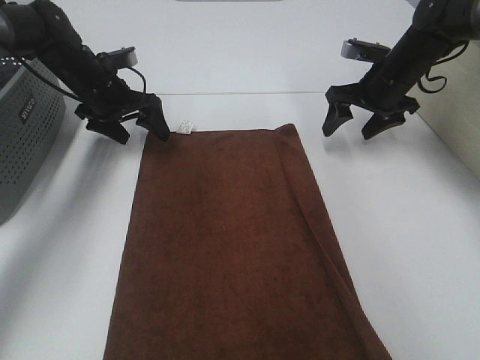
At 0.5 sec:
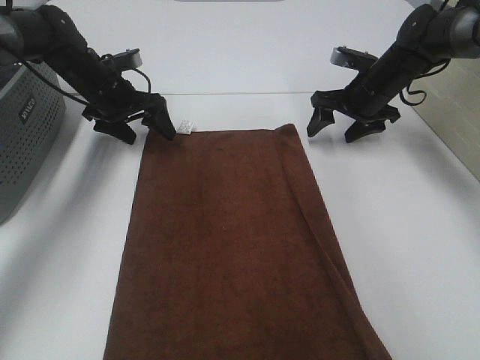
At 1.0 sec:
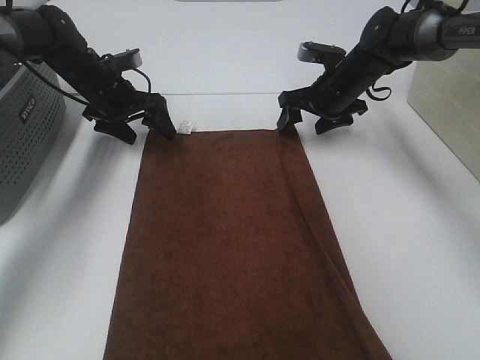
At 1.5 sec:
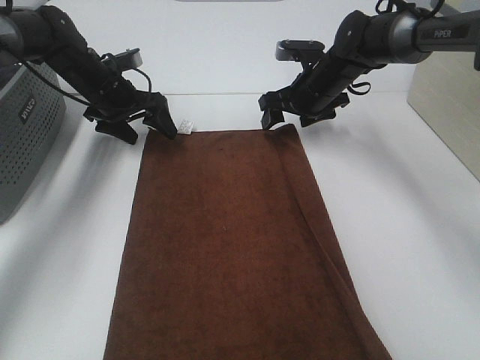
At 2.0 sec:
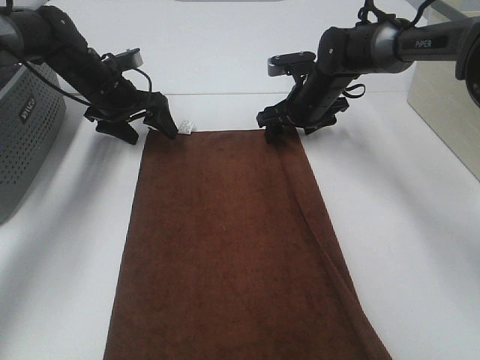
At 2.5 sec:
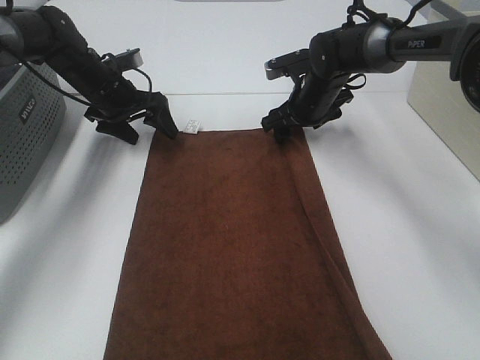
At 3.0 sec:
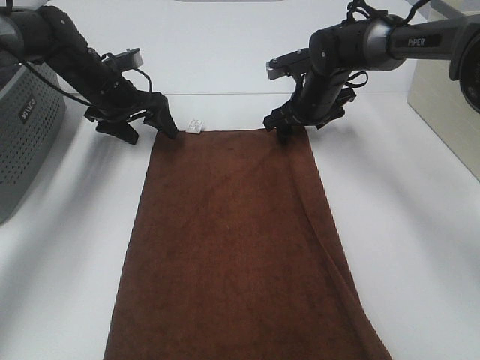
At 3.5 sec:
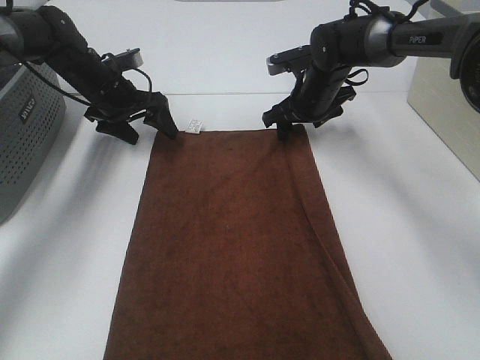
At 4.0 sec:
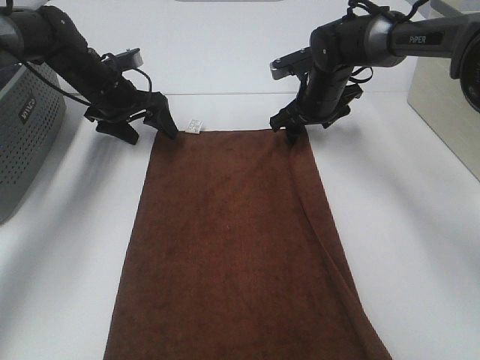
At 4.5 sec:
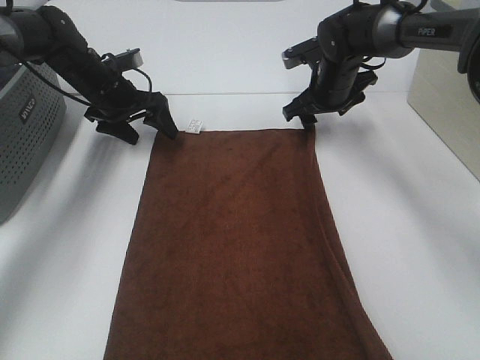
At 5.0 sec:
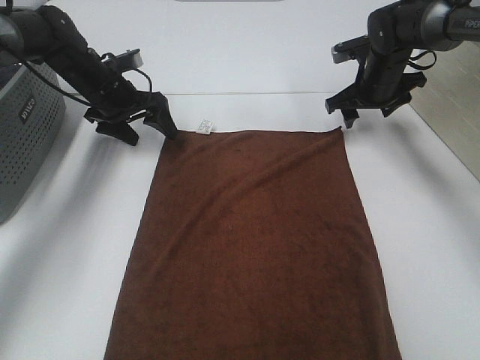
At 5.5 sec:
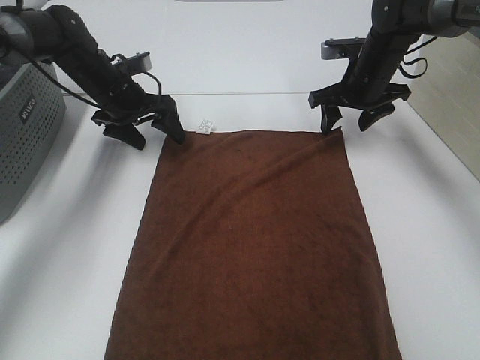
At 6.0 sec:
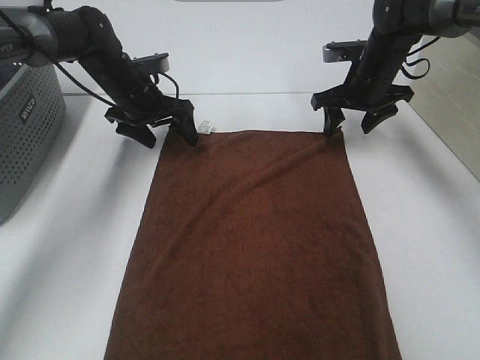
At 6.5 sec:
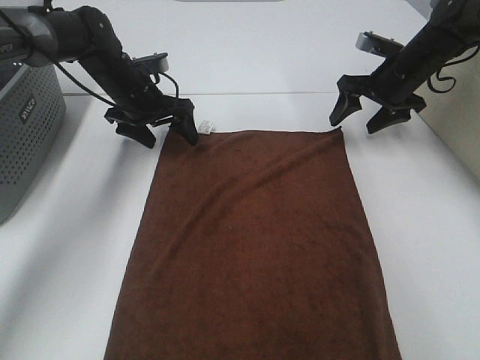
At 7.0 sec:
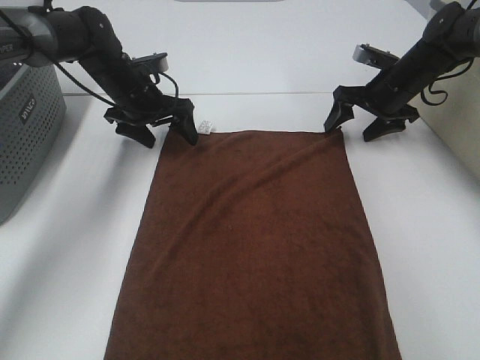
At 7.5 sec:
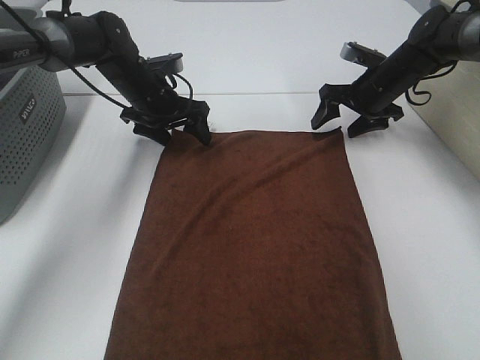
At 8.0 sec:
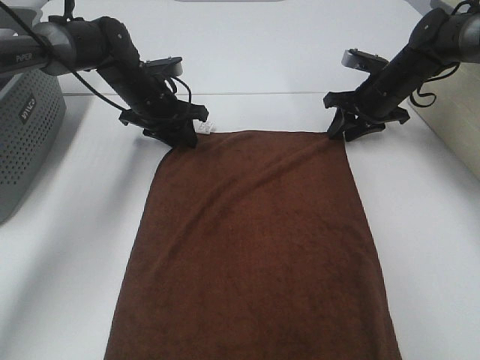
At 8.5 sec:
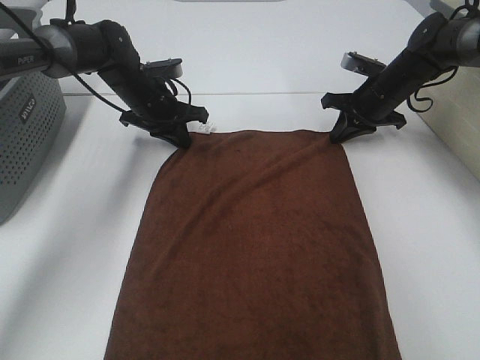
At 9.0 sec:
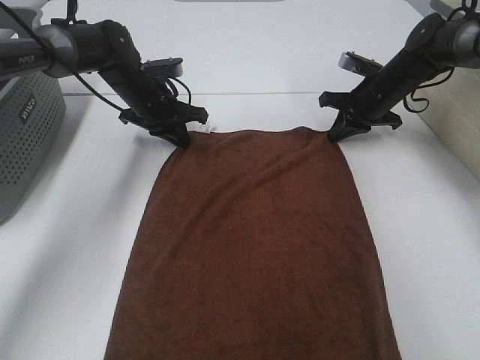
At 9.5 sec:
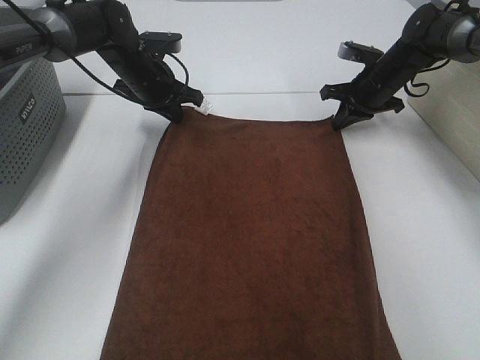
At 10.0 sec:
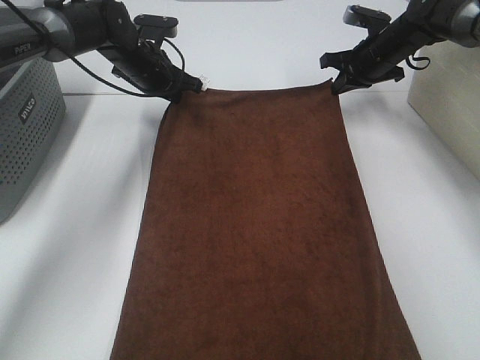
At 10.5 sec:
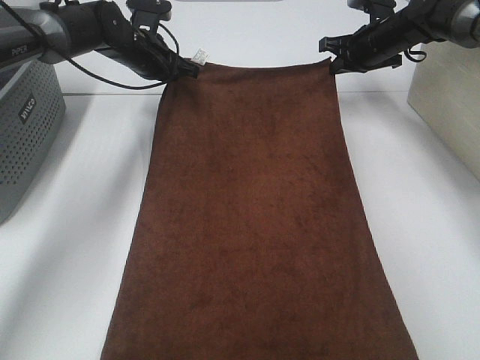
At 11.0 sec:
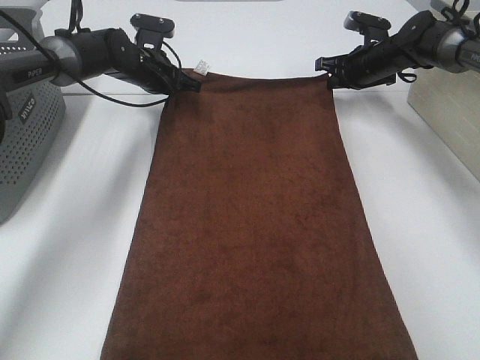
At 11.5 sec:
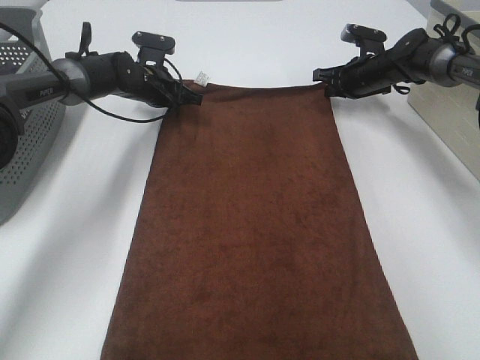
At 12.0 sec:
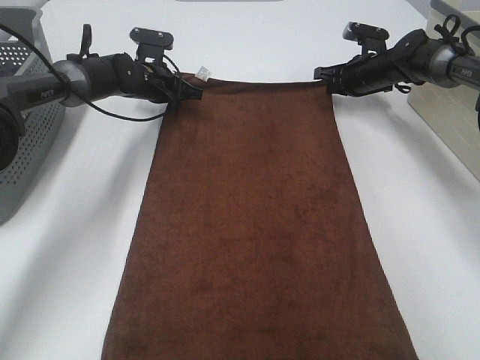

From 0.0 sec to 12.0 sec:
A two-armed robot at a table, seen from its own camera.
Task of the whole recording: Remove the towel and place it.
Step, from 0.0 sec to 5.5 sec: Right hand:adjust the brown towel.
From 0.0 sec to 2.0 sec: The right gripper travels to the left by roughly 10 cm.
From 2.0 sec to 4.0 sec: The grippers make only small movements.
From 4.0 sec to 6.0 sec: The right gripper moves to the right, some 5 cm.
From 6.0 sec to 8.0 sec: The right gripper changes place by some 5 cm; the left gripper closes up.
From 8.0 sec to 10.0 sec: The right gripper shifts by roughly 5 cm, and closes up. Meanwhile the left gripper ends up about 5 cm from where it was, and closes its fingers.
From 10.0 sec to 12.0 sec: Both grippers move downward, approximately 5 cm.

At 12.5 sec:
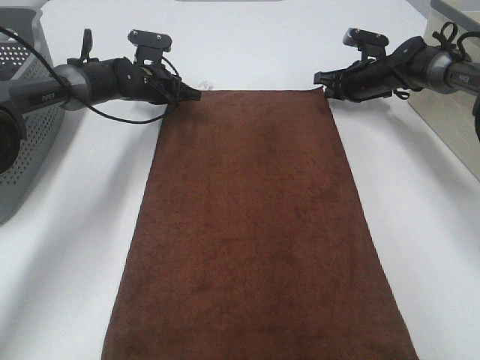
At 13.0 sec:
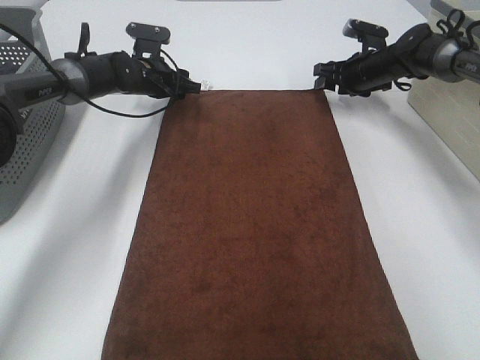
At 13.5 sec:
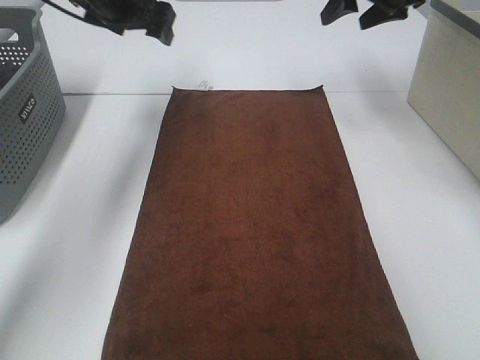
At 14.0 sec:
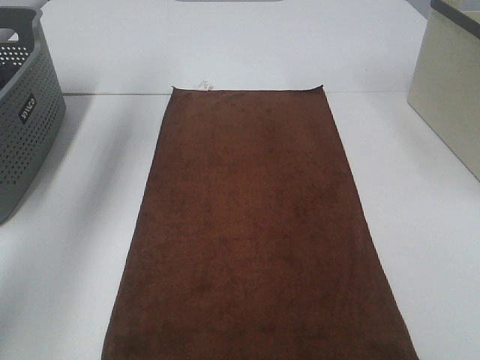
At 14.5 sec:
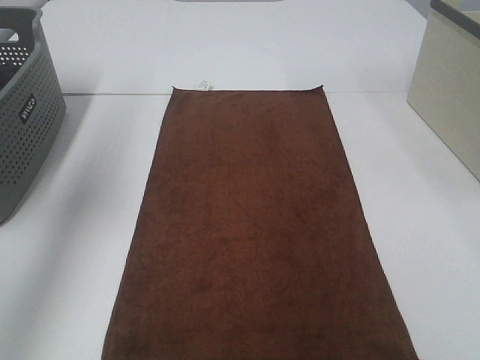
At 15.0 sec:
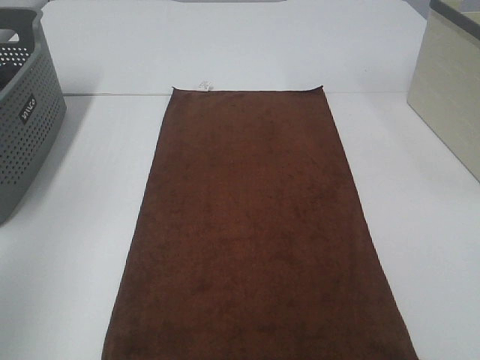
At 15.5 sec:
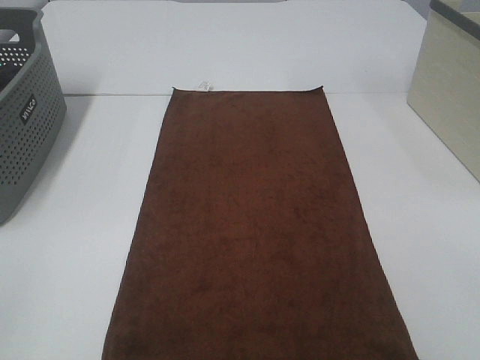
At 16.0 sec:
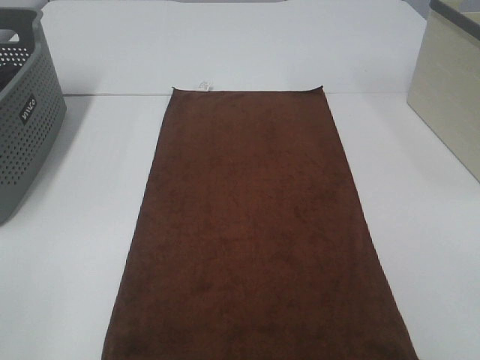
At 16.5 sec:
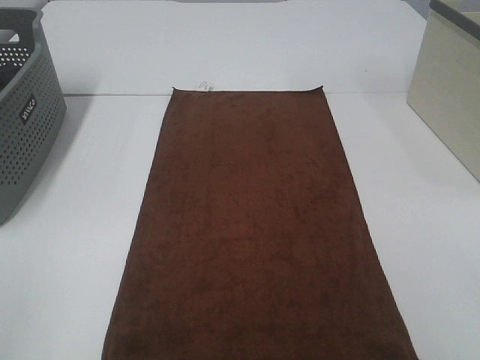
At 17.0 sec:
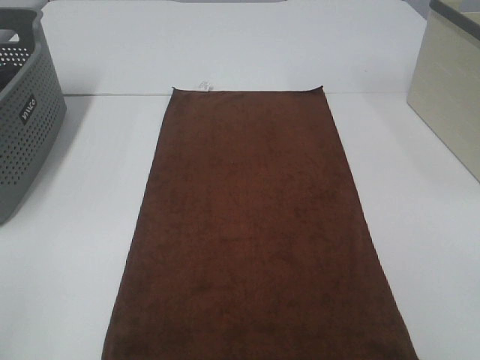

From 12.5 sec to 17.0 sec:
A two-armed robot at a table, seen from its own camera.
Task of the whole recording: Remove the towel and place it.
From 12.5 sec to 14.5 sec: The left gripper goes about 40 cm upward and backward, and opens, while the right gripper moves backward and upward, about 50 cm, and opens its fingers.
From 14.5 sec to 17.0 sec: The left gripper goes approximately 30 cm backward.

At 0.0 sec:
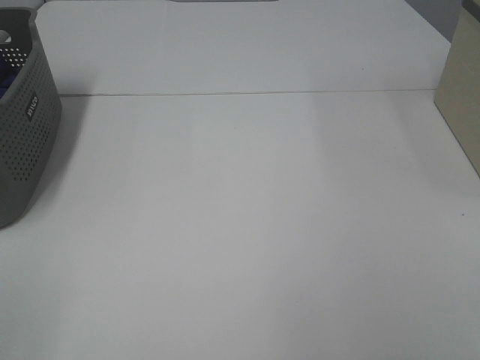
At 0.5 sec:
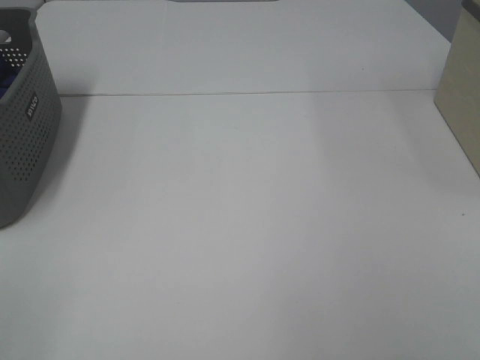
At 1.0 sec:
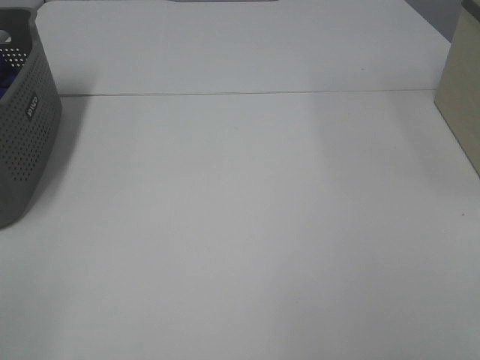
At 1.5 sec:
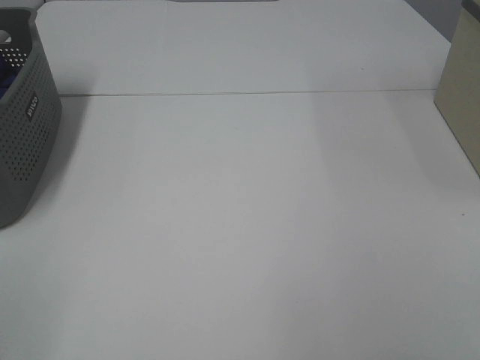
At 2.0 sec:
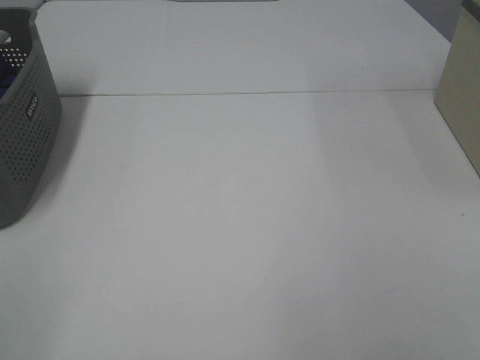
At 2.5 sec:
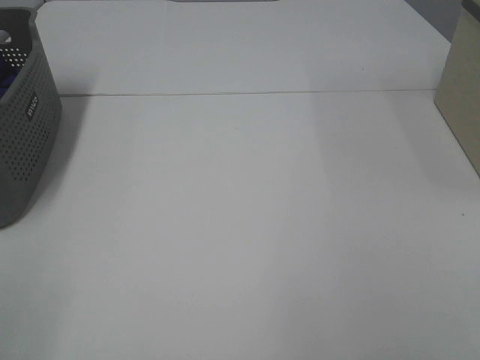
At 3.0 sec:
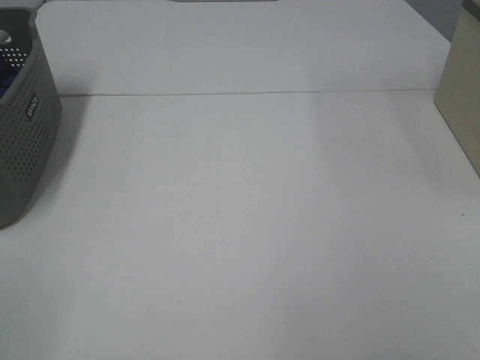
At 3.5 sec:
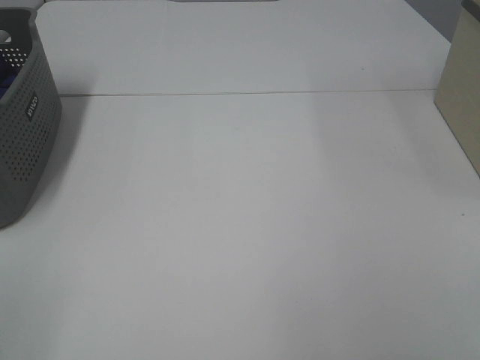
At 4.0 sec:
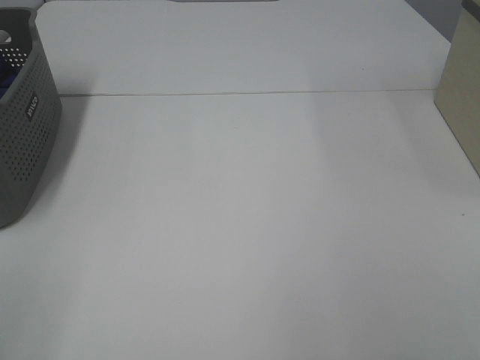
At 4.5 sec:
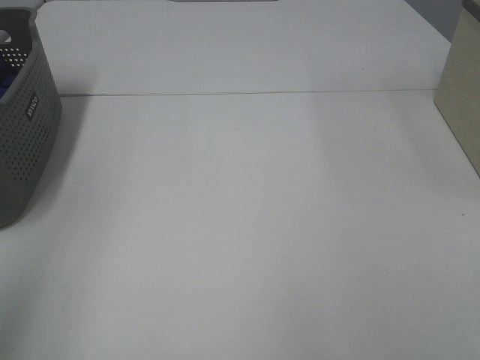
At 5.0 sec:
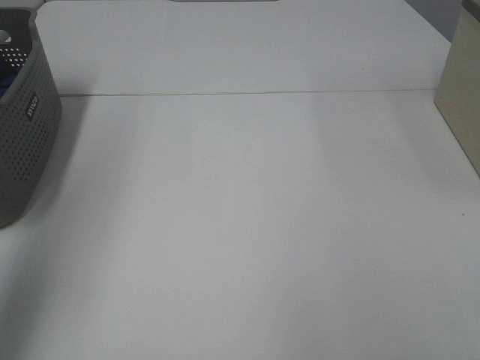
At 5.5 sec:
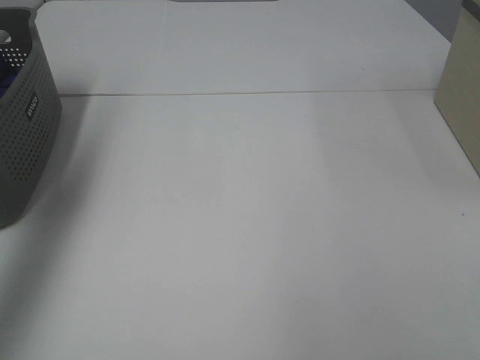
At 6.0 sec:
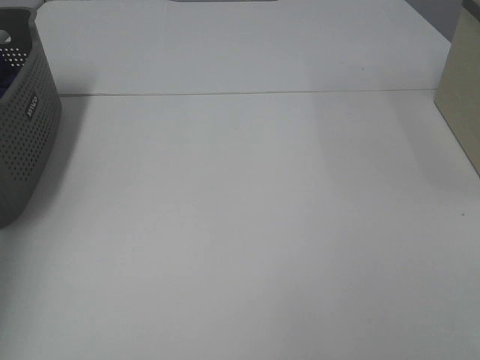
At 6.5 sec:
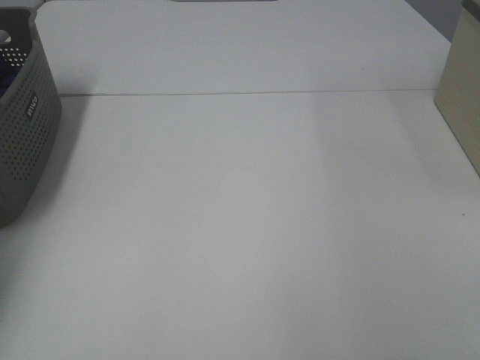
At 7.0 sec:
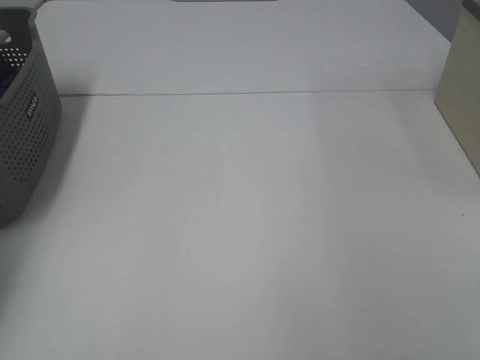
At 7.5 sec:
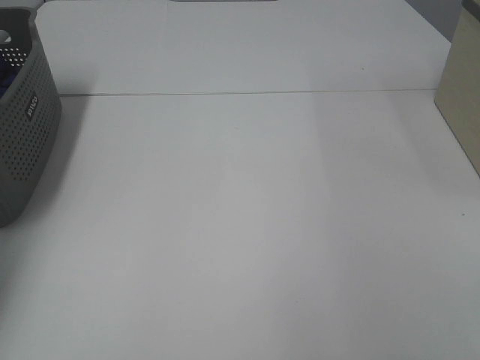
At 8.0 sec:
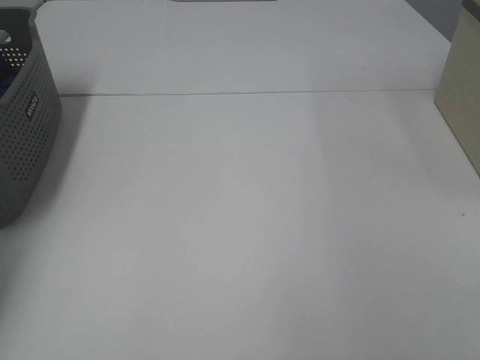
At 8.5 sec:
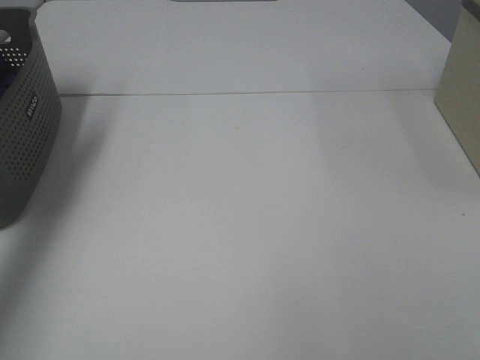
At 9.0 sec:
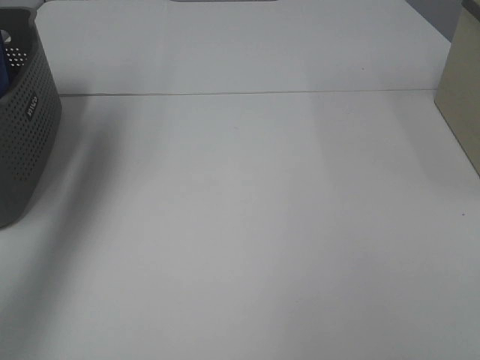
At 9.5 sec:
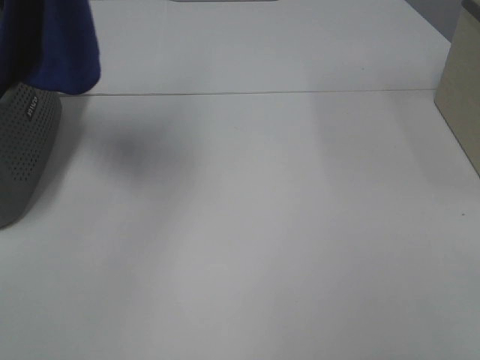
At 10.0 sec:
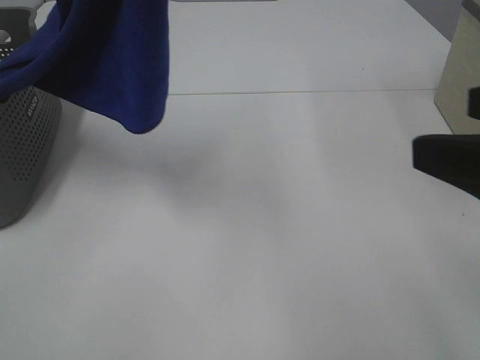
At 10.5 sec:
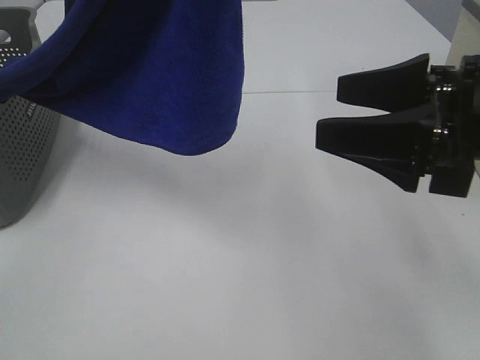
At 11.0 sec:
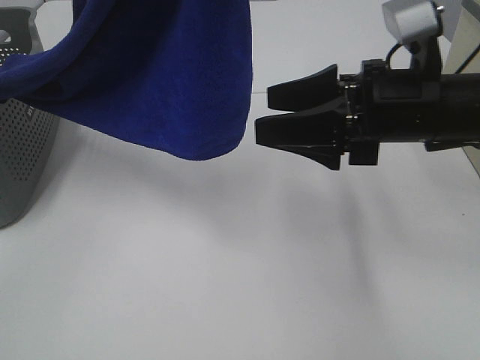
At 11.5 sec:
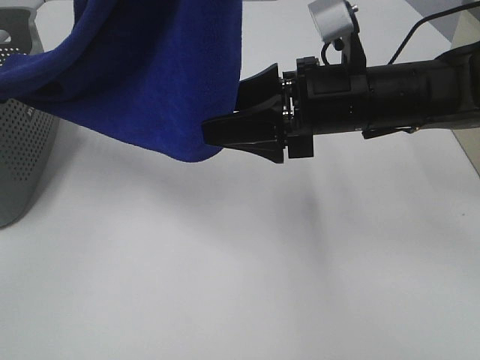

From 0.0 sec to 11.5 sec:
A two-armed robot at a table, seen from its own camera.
Task of the whole recording: Remove the towel and place it.
From 0.0 sec to 2.0 sec: Both grippers stay put.
From 4.0 sec to 6.0 sec: The left gripper goes roughly 40 cm forward.
From 7.5 sec to 9.5 sec: The left gripper travels upward, to the right and backward by roughly 40 cm.
From 9.5 sec to 11.5 sec: The left gripper shifts roughly 15 cm to the right and backward; the right gripper goes roughly 30 cm forward and to the left.
